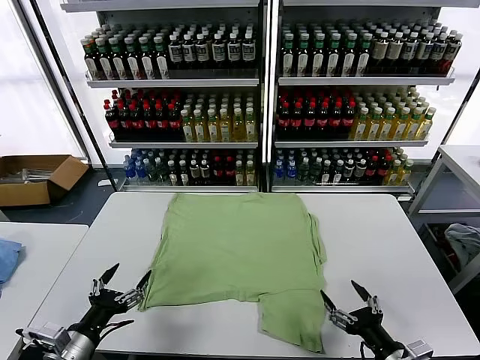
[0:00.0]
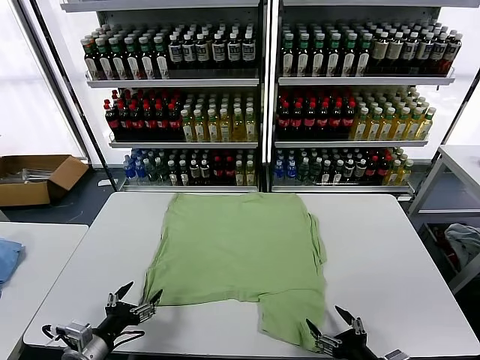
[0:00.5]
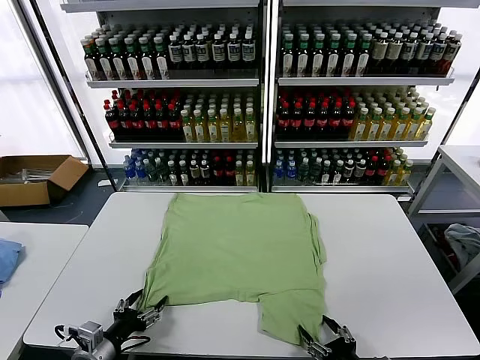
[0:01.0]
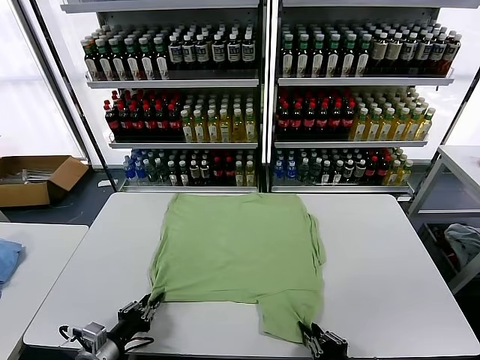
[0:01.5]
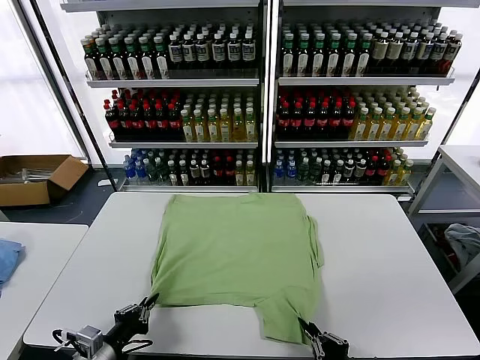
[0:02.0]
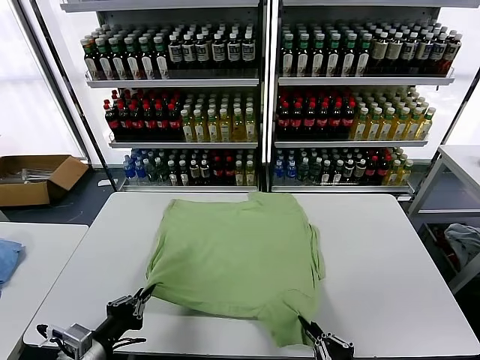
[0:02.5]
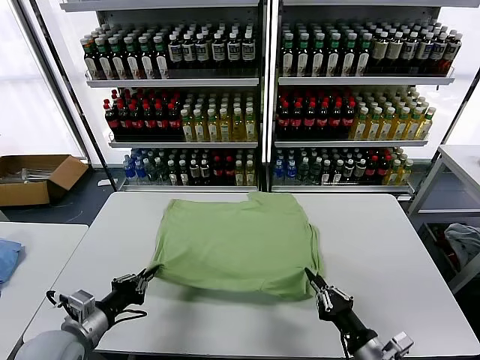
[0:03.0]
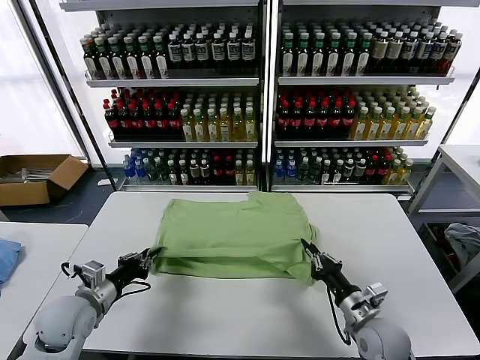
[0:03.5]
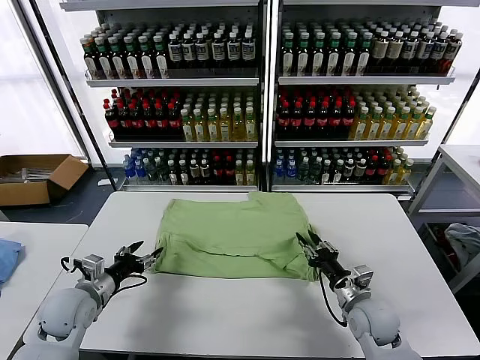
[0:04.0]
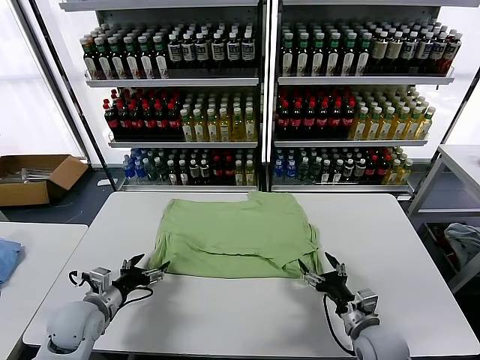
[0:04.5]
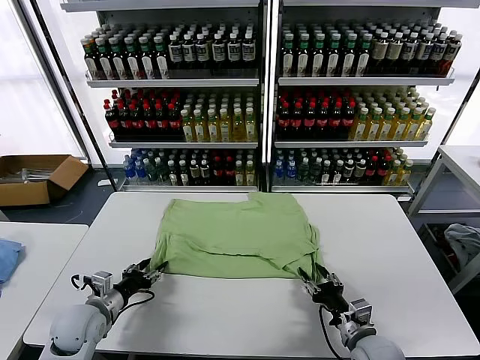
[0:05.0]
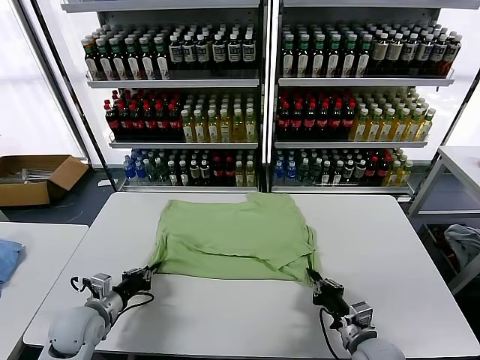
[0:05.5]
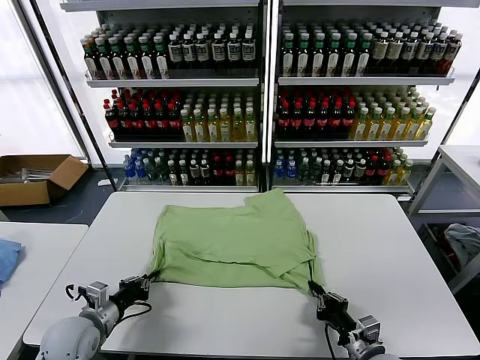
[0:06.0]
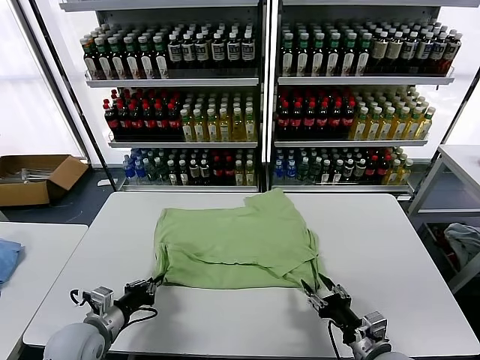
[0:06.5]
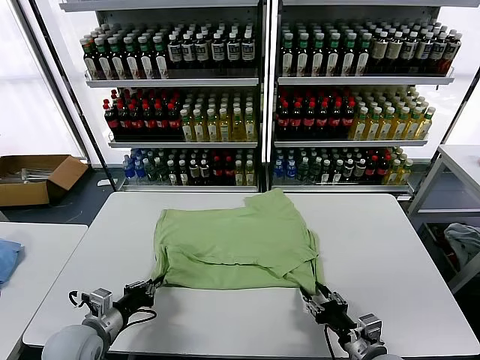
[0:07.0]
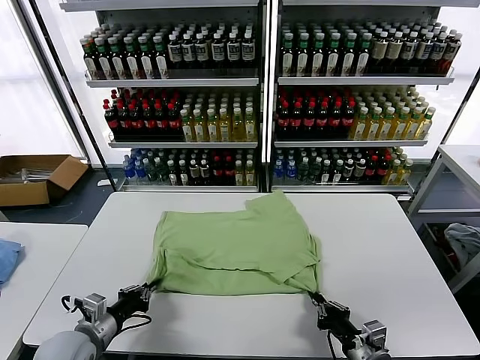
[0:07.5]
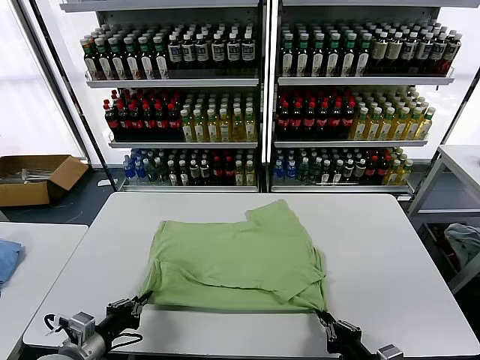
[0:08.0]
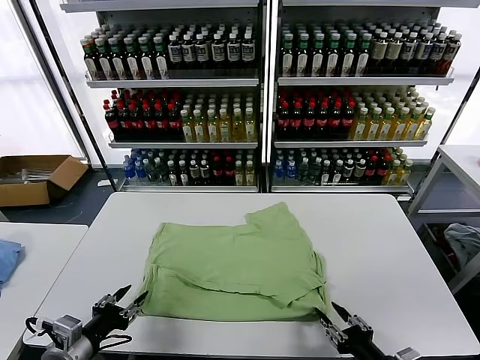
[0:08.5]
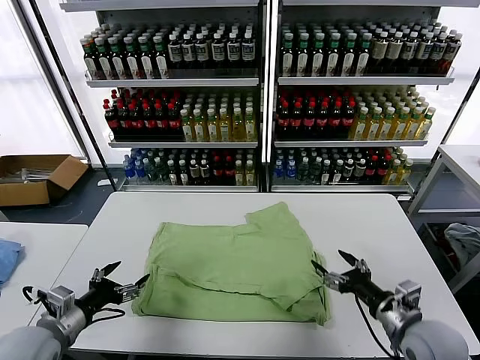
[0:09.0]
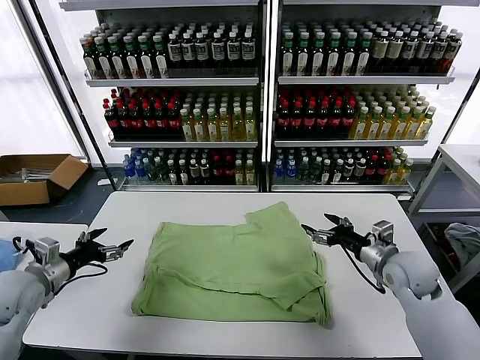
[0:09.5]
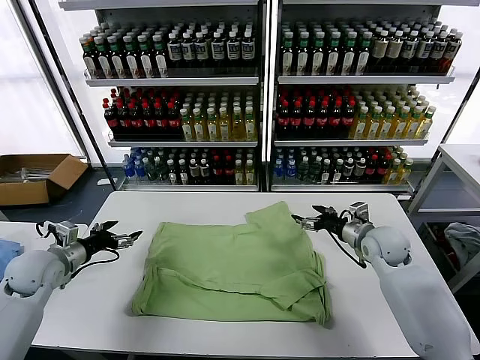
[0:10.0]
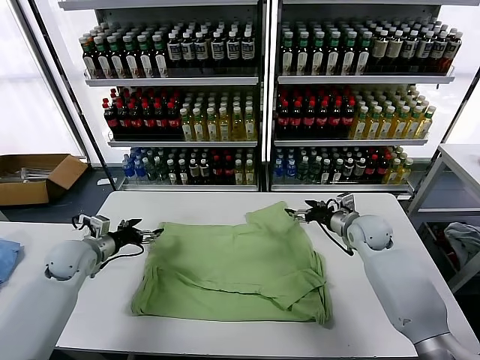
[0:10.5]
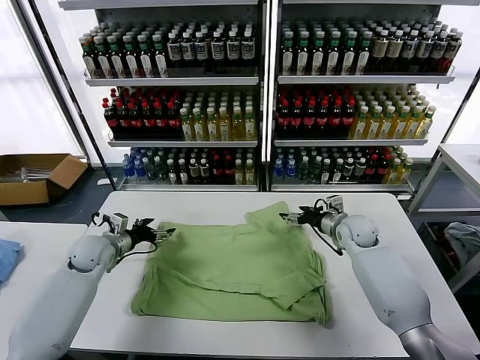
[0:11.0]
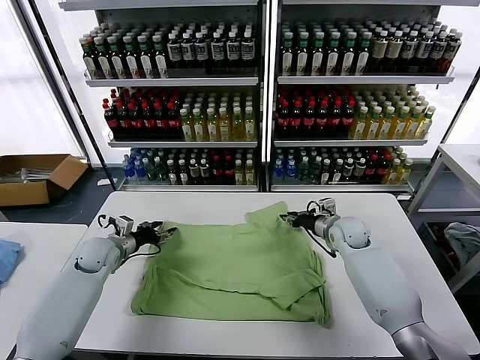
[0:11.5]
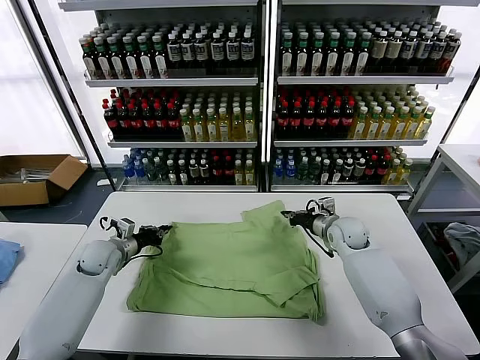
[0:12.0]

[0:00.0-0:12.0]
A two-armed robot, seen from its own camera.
Task of the whole recording: fold and organize the clothes.
Step, 0.0 to 1.5 s: use both grippers simultaneously to clamp the lower edge of the clothing fabric.
Step, 2.0 to 4.0 s: use both grippers to drag the lower edge of the fabric forward and fold it over the upper edge.
Step, 4.5 to 8.5 s: Drag the clothes downward with both gripper.
2.0 to 4.0 s: Both grippers travel together forward, approximately 20 cm. The left gripper opens up; the right gripper opens.
4.0 to 6.0 s: The left gripper changes place by about 5 cm, and closes its fingers. The right gripper shifts roughly 10 cm backward, and closes up.
6.0 to 8.0 s: The two grippers go roughly 10 cm backward. The right gripper opens, then closes again.
8.0 to 10.0 s: The left gripper is displaced forward and to the left by approximately 20 cm, and opens. The right gripper heads forward, covering some 35 cm, and opens its fingers.
10.0 to 12.0 s: The left gripper shifts approximately 15 cm forward, downward and to the right, and closes its fingers. Meanwhile the right gripper goes about 10 cm to the left and forward, and closes.

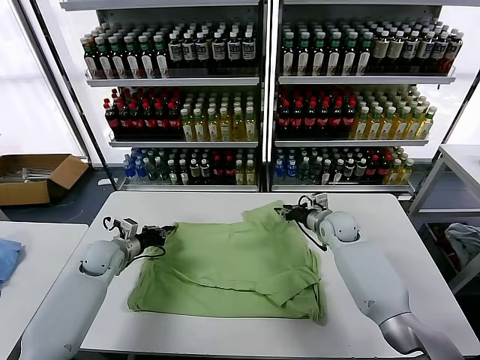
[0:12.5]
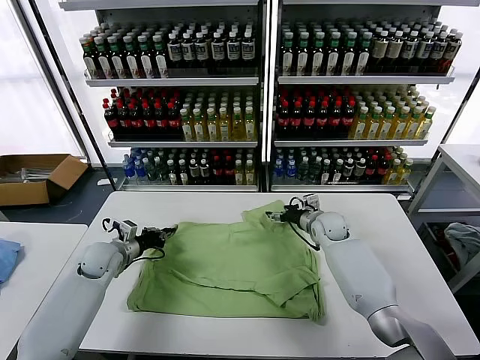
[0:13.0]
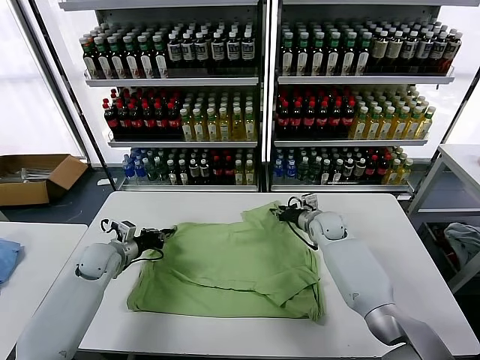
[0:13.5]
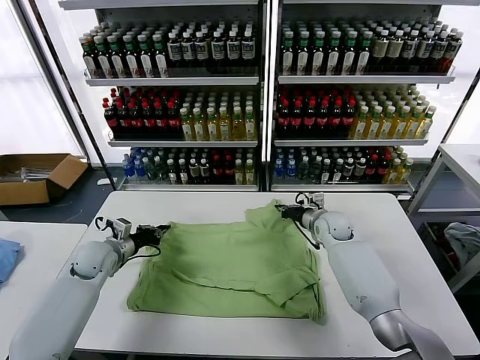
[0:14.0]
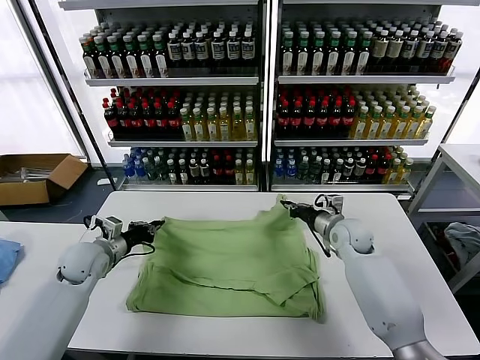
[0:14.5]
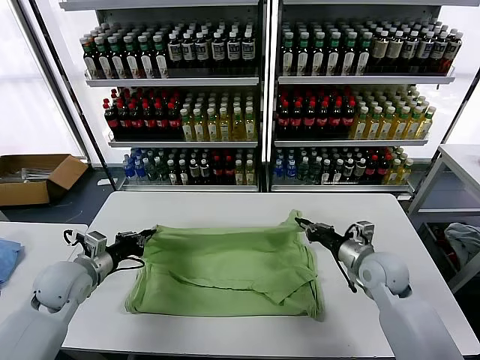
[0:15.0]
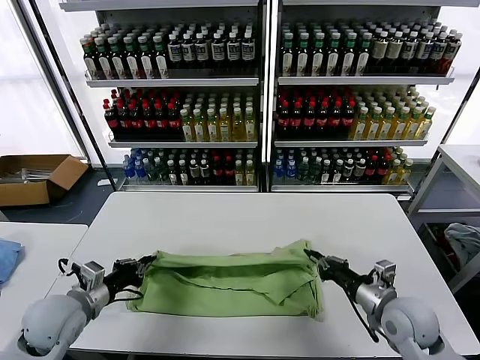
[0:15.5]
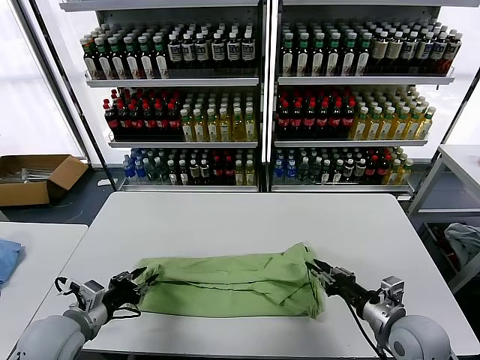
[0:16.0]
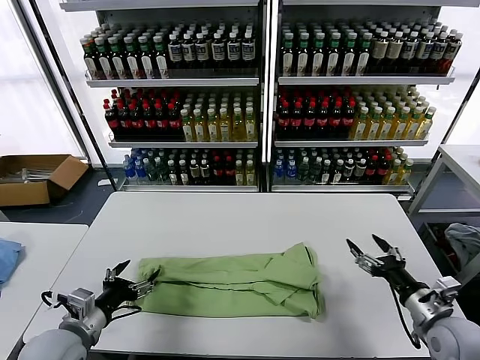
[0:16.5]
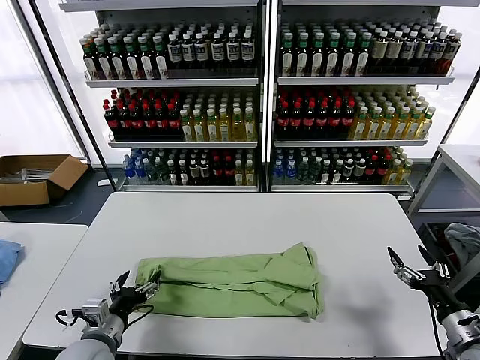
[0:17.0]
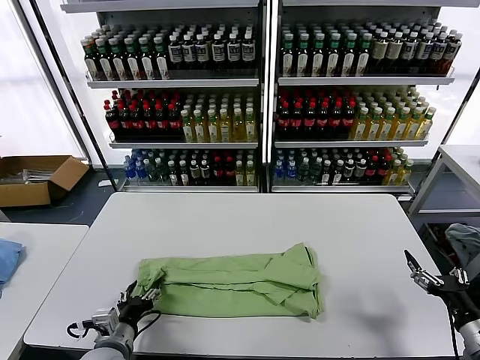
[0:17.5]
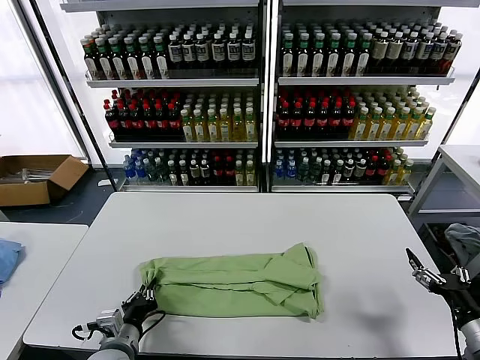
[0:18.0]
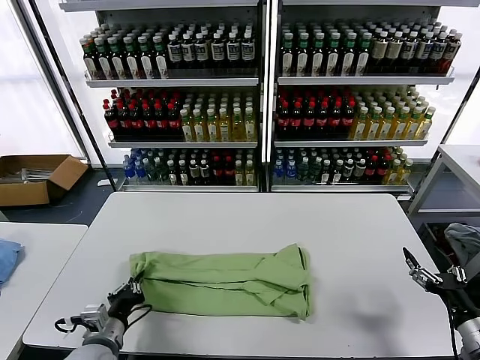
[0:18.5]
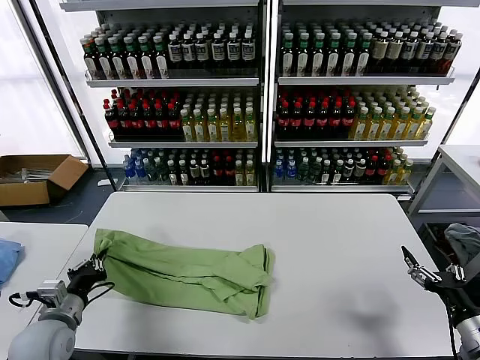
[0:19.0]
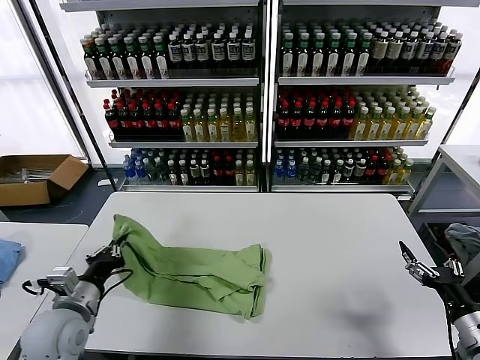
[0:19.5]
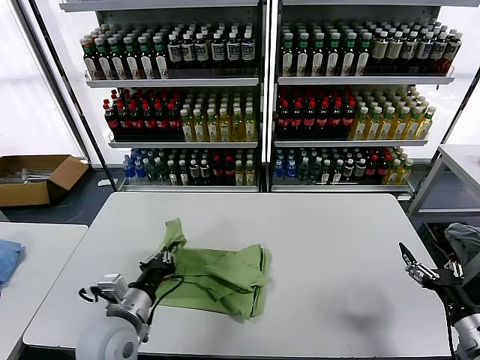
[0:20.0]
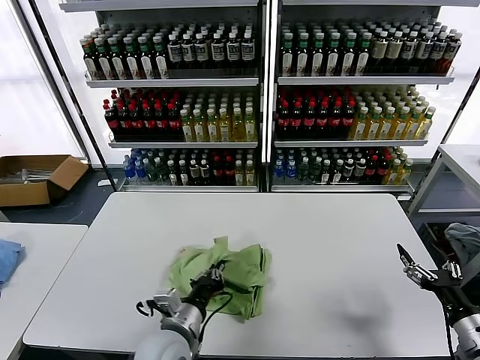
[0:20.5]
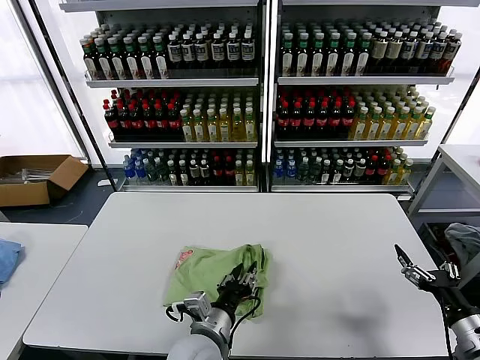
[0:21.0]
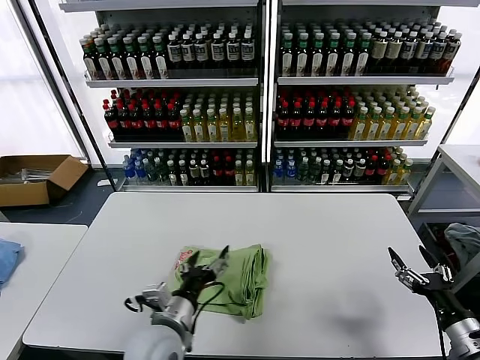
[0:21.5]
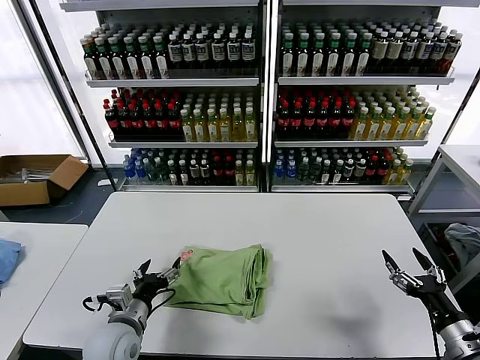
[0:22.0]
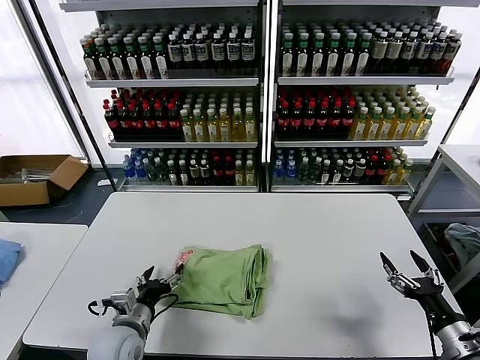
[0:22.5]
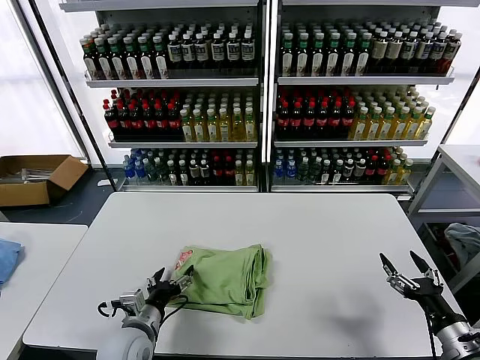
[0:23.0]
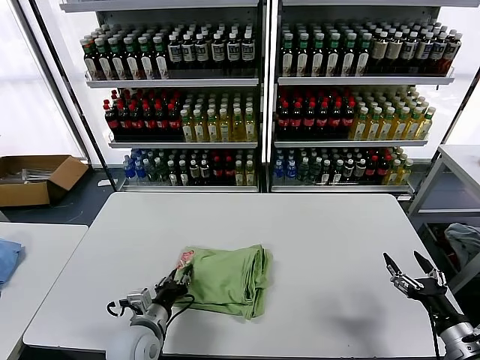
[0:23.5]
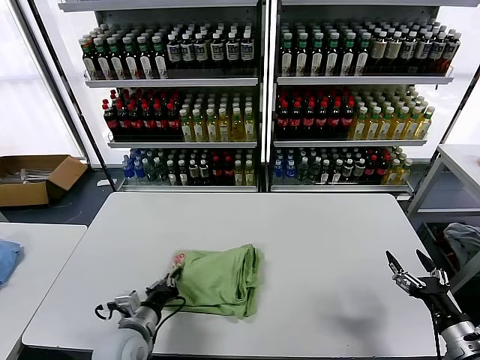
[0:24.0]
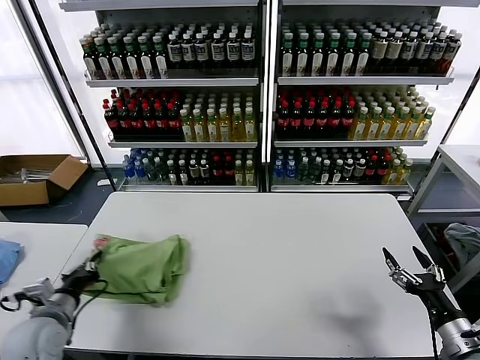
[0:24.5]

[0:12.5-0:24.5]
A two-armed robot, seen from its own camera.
Task of the whole recording: fold and organize the clothes.
Step, 14.0 to 16.0 s: use both grippers to drag the upper edge of the fabric backward and fold it over the lower edge.
Step, 16.5 to 18.0 s: use the left gripper to clamp the left edge of the fabric.
Step, 18.5 to 21.0 s: use the left gripper to drag the left edge of the fabric to the left and folds it over the right edge.
12.5 to 14.5 s: The right gripper shifts approximately 5 cm backward, and closes up, while the left gripper shifts by about 5 cm.
14.5 to 16.5 s: The right gripper shifts approximately 30 cm backward and to the right, and opens up. The left gripper travels backward by approximately 20 cm, and opens its fingers.
16.5 to 18.5 s: The right gripper heads to the right and backward, covering about 10 cm. The left gripper travels downward by roughly 5 cm, and closes up.
18.5 to 20.5 s: The left gripper travels to the right by about 15 cm.
20.5 to 22.5 s: The left gripper travels to the left by roughly 10 cm, and opens.
22.5 to 24.5 s: The left gripper shifts approximately 15 cm to the left, and closes its fingers.

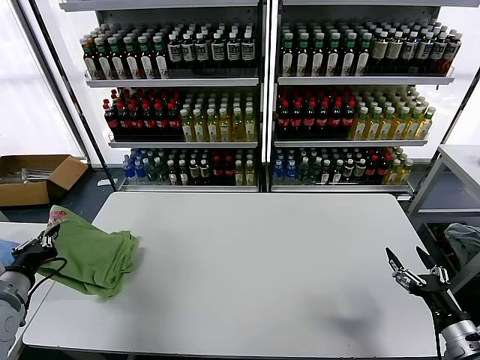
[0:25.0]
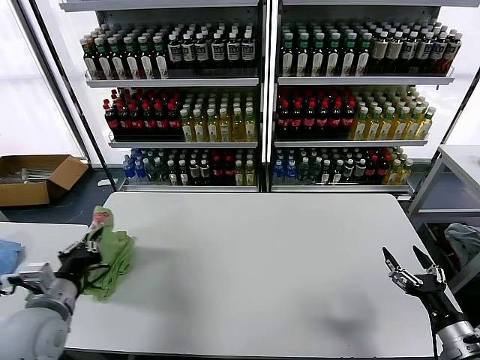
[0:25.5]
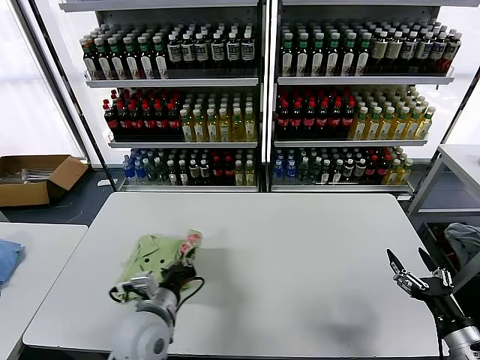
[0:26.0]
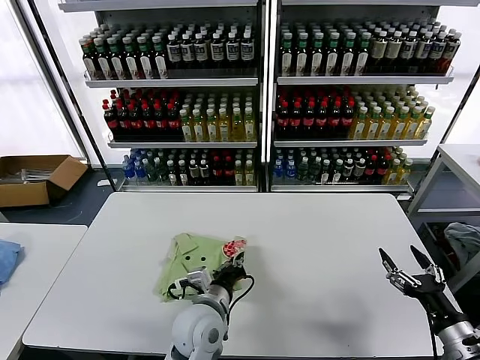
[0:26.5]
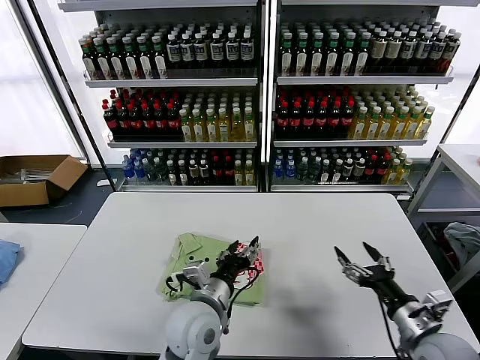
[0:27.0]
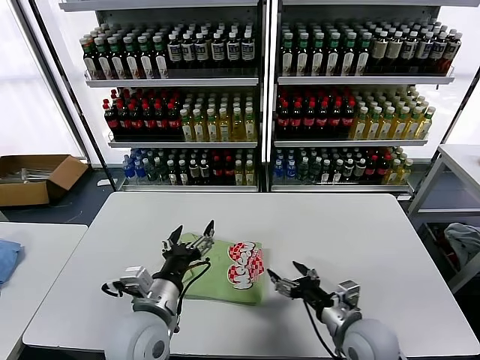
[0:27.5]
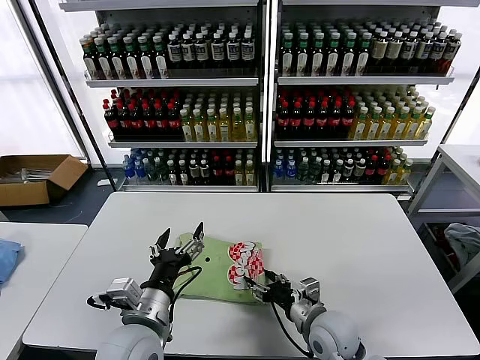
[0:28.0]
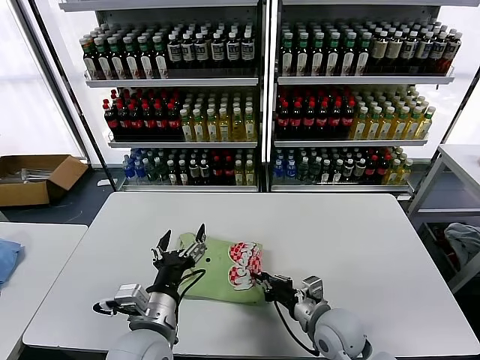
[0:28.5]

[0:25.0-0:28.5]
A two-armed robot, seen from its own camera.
Task of the whole recording: fold and organize the clothes.
25.0 to 27.0 s: The right gripper is displaced to the left by roughly 5 cm. The left gripper is displaced to the right by approximately 35 cm, and opens.
27.0 to 28.5 s: The right gripper is displaced to the left and forward by approximately 20 cm, and closes its fingers; the left gripper heads to the left and backward, covering approximately 10 cm, and opens.
